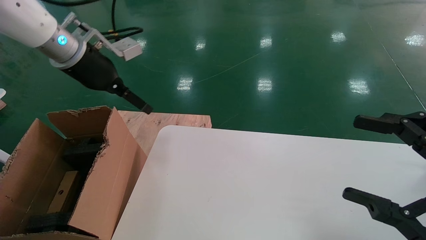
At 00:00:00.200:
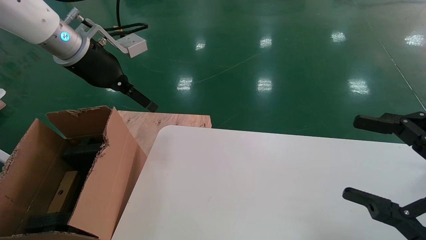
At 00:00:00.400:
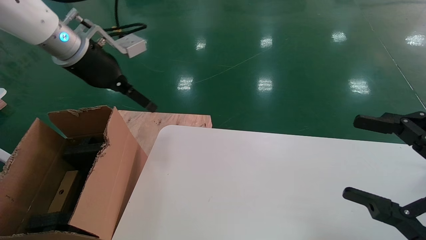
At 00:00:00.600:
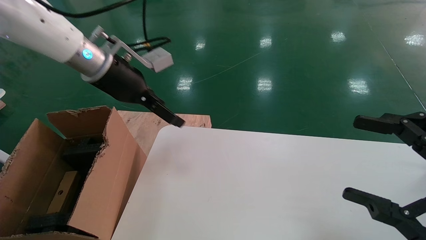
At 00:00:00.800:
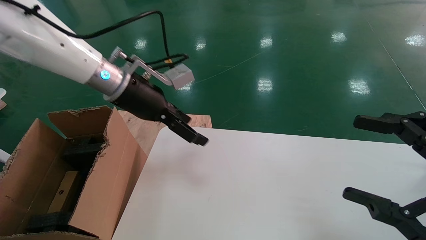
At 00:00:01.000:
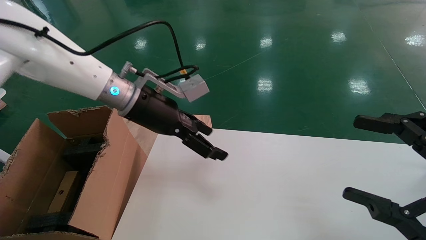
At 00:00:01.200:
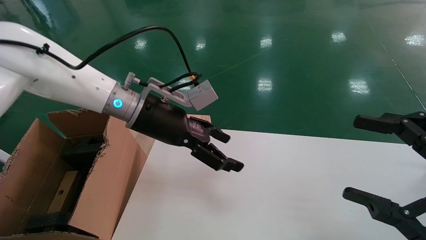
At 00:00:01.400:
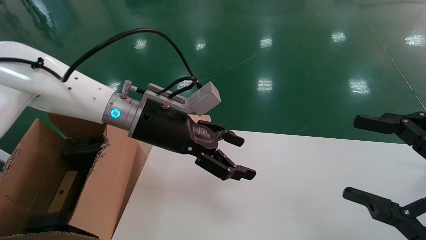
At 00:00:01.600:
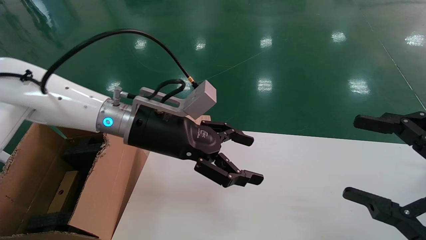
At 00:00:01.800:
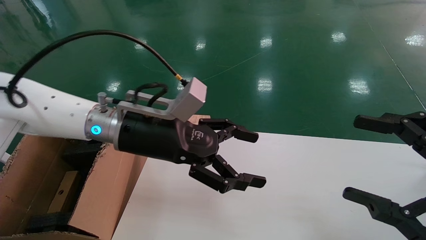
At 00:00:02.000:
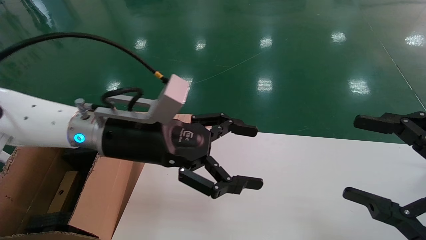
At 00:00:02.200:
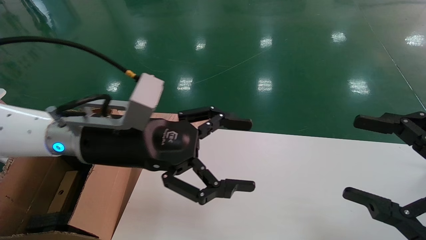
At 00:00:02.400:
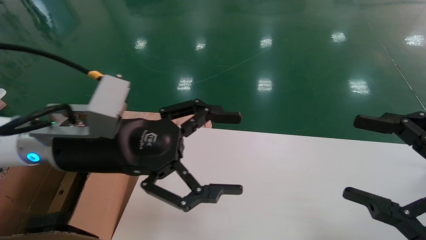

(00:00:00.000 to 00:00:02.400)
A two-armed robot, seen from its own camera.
Task of the whole recording: place the small box on the table into the large box on the left.
00:00:00.000 - 00:00:01.200: The left gripper heads to the right and downward, covering some 20 cm.
00:00:01.200 - 00:00:02.400: The left gripper travels backward by approximately 10 cm.
